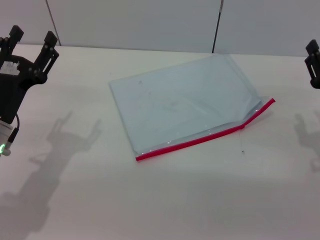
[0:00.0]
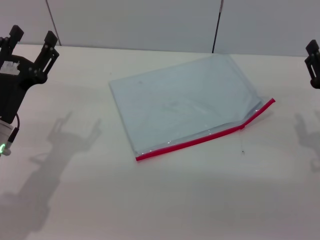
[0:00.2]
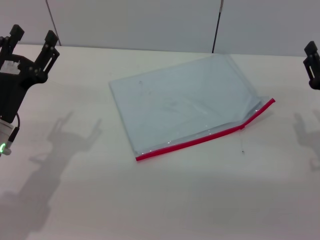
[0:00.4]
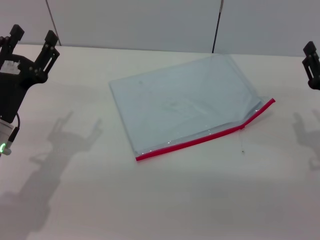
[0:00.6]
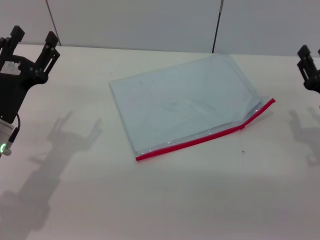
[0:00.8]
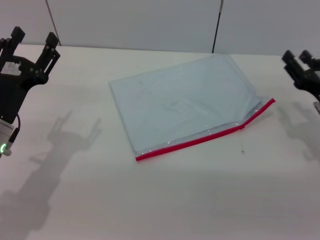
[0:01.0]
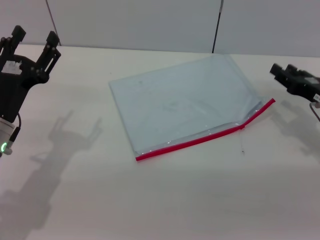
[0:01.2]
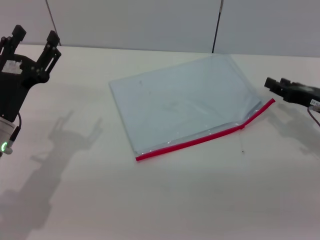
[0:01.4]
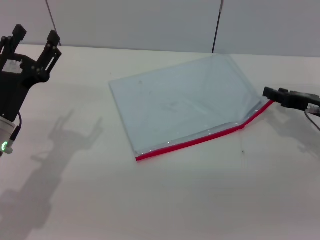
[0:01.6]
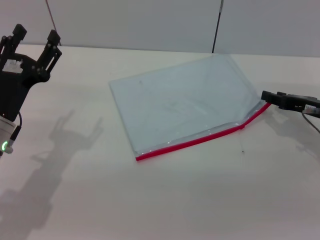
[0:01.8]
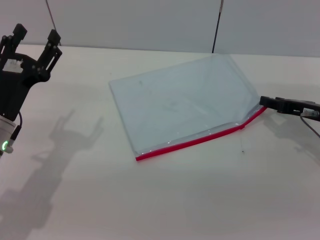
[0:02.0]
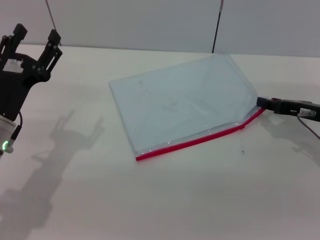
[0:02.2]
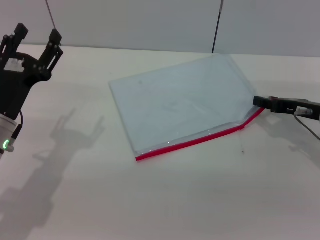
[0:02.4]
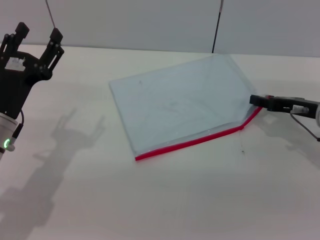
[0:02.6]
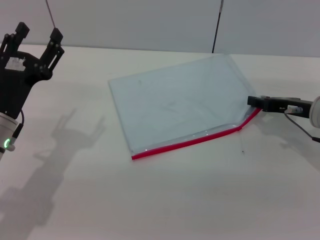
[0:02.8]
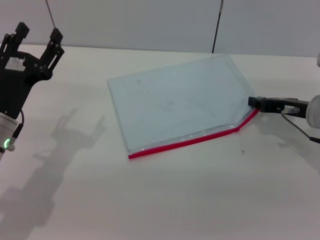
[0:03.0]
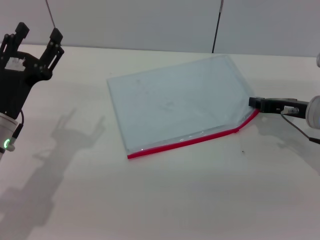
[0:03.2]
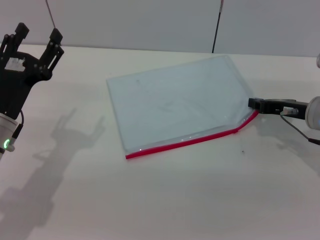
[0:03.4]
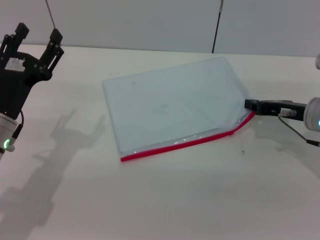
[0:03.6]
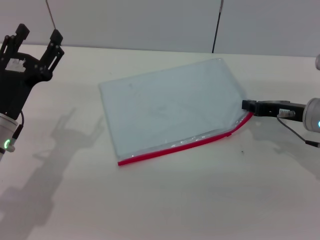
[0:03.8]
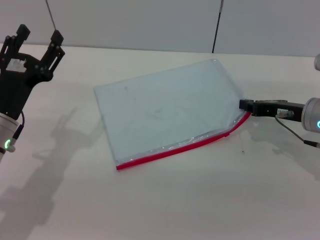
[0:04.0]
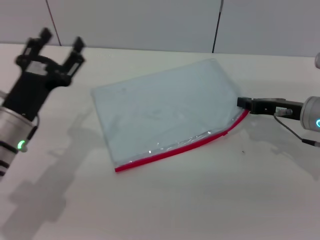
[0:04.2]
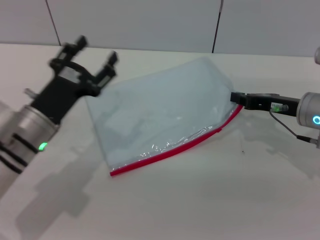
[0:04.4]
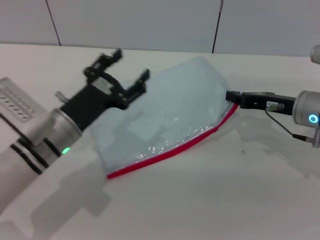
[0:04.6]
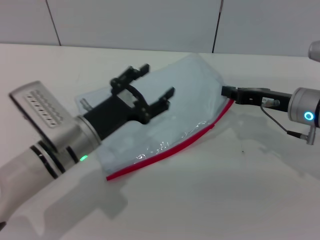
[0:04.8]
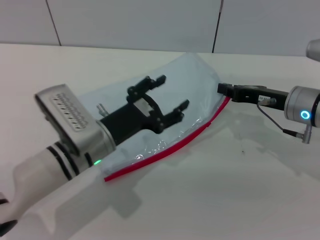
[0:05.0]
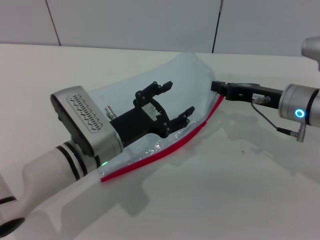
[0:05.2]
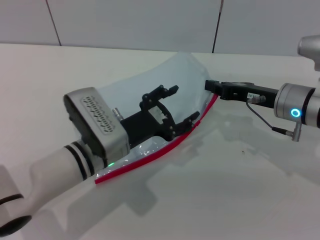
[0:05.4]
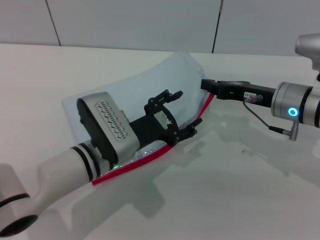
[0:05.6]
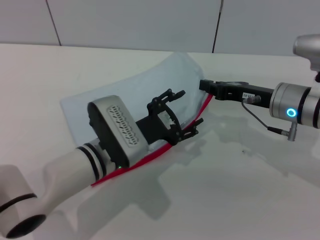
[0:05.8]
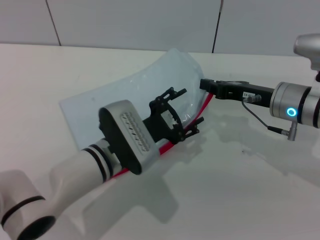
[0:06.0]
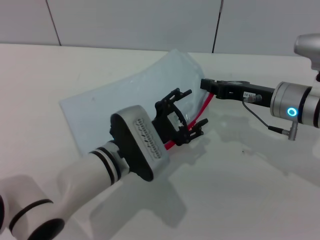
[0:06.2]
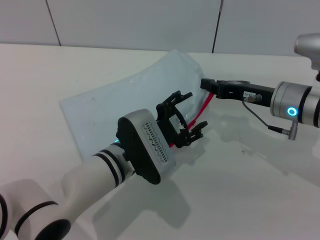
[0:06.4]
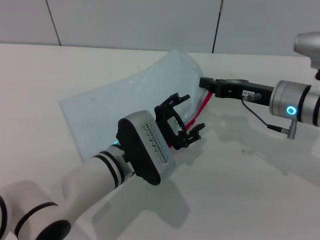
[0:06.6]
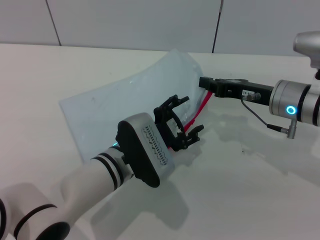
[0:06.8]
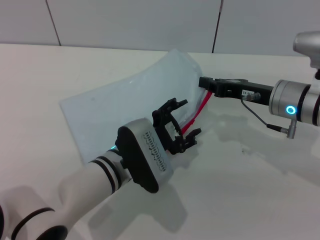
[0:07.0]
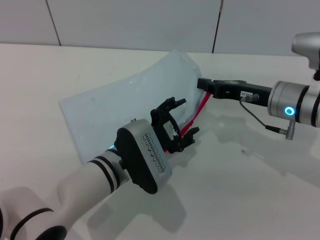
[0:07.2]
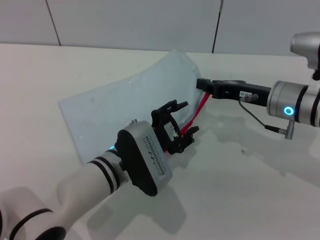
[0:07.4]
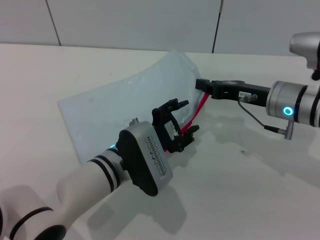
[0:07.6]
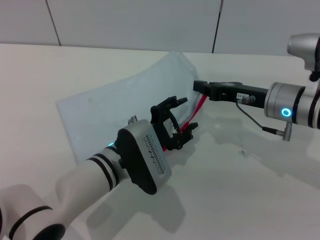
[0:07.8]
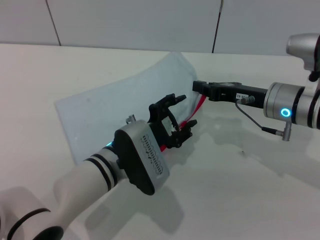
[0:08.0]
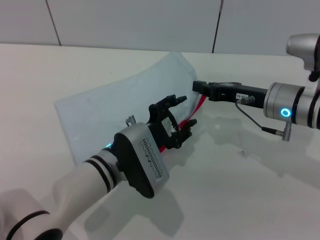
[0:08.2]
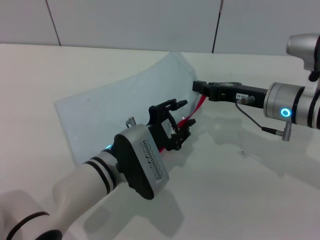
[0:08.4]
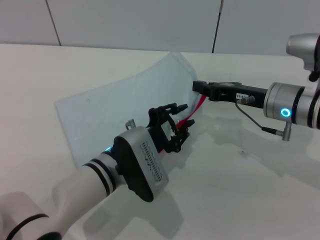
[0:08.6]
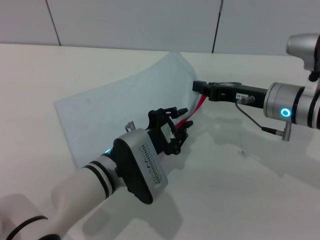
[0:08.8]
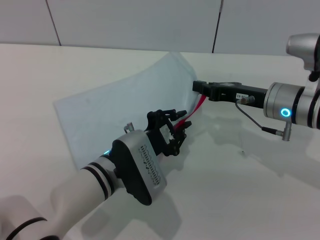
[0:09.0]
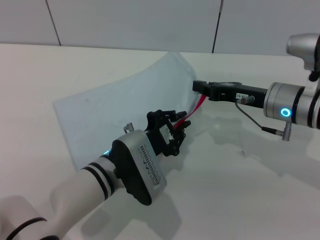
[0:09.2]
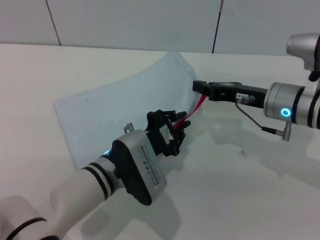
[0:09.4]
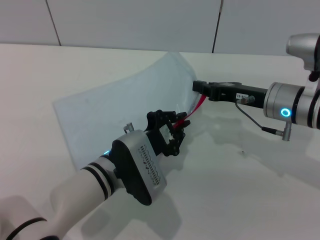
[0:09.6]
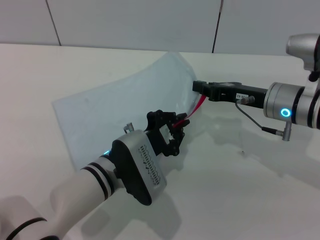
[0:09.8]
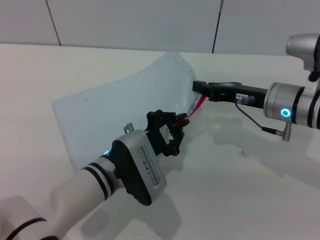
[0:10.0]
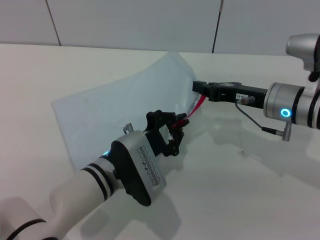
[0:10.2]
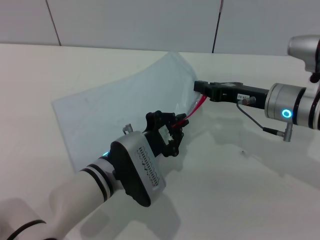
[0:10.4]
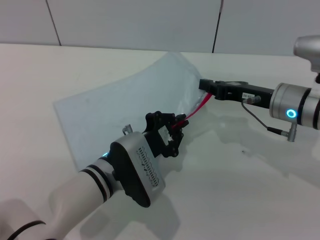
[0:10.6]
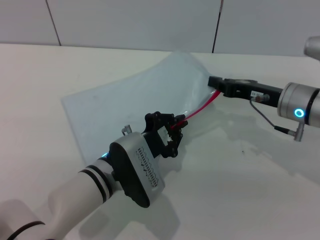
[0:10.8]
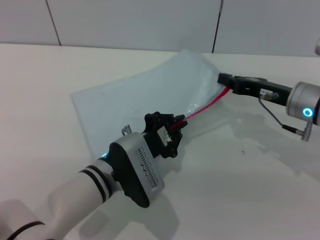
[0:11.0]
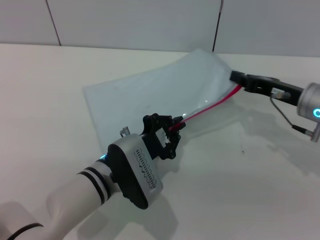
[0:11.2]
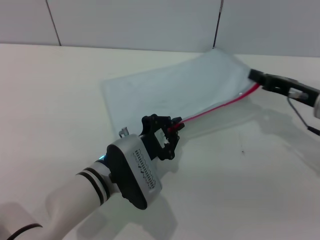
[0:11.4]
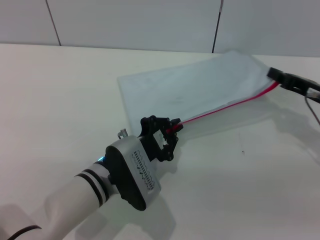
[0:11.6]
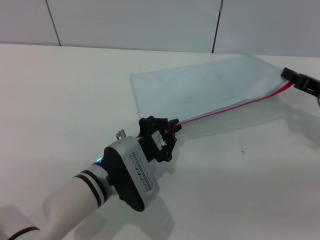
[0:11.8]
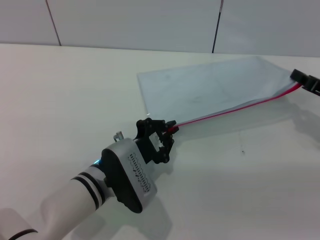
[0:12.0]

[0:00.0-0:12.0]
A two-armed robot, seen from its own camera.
Step, 0:00.0 to 0:05.0: Pick up the transparent plastic bag with the right gripper.
0:00.0 to 0:01.6: The right gripper shifts approximately 5 cm forward.
0:01.6 to 0:04.4: The grippers stay close to where they were, moving slightly.
0:04.4 to 0:06.0: The left gripper is displaced to the right by some 10 cm.
0:06.0 to 0:07.6: The grippers make only small movements.
0:07.6 to 0:09.0: The left gripper closes its fingers.
0:09.0 to 0:10.4: Both grippers stay put.
0:10.4 to 0:12.0: The right gripper travels to the right by about 15 cm.

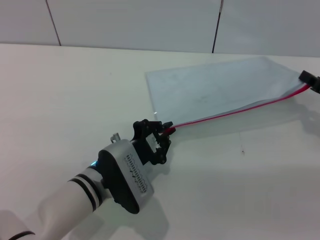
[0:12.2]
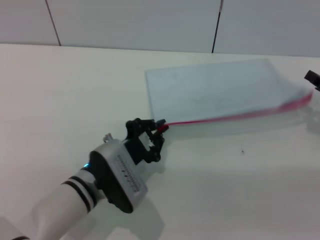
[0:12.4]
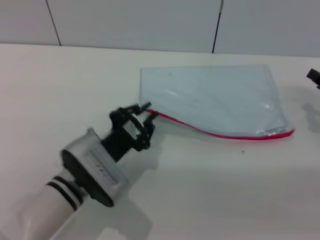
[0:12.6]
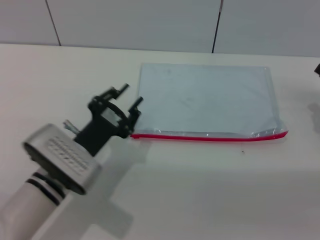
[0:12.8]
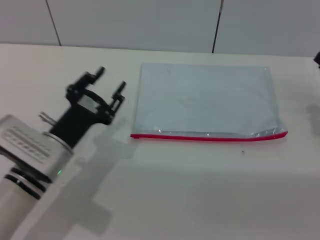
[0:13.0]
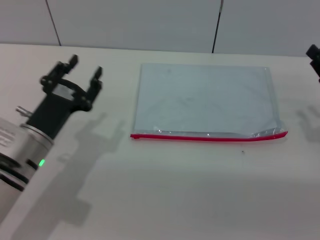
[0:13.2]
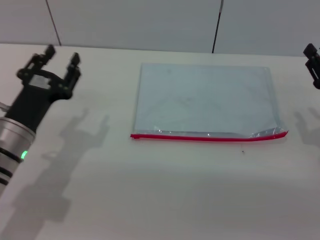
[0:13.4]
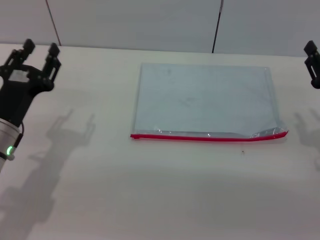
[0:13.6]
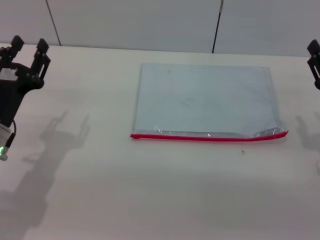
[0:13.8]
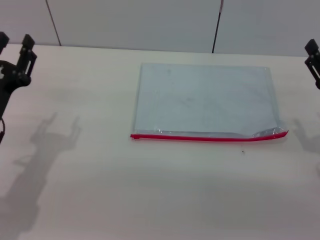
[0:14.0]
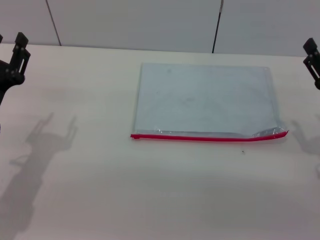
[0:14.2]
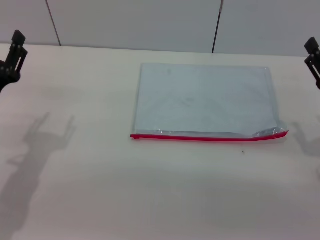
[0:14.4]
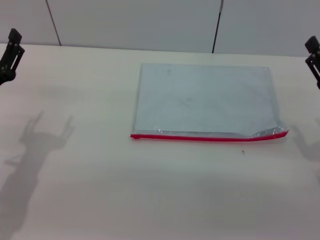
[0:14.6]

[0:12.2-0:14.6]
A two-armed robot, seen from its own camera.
Step, 0:12.6 to 0:13.2: Place the transparent plastic bag.
0:12.2 to 0:13.4: The right gripper opens. Meanwhile the left gripper shifts about 10 cm to the left, and opens its fingers.
0:13.4 to 0:14.6: The right gripper opens up. The left gripper goes roughly 5 cm to the left.
